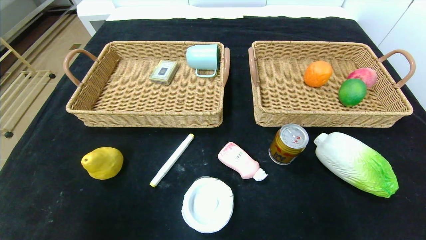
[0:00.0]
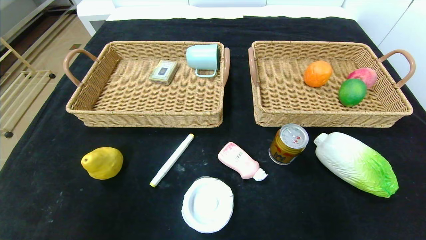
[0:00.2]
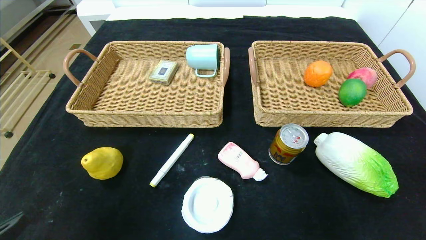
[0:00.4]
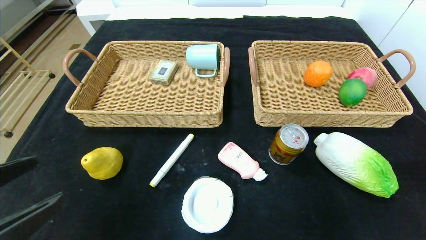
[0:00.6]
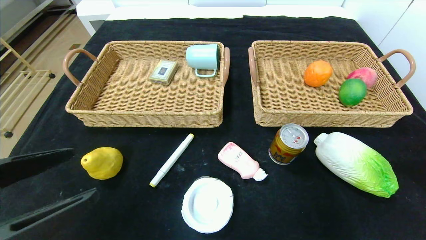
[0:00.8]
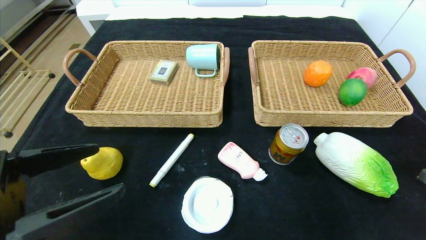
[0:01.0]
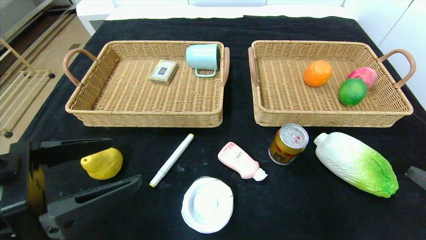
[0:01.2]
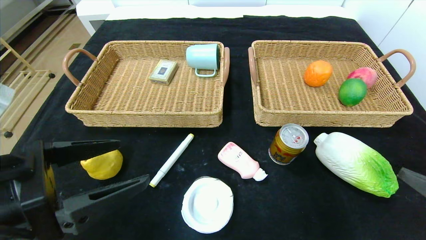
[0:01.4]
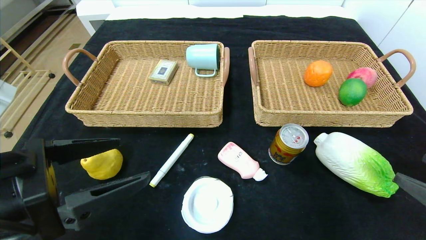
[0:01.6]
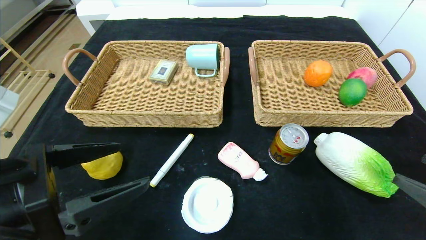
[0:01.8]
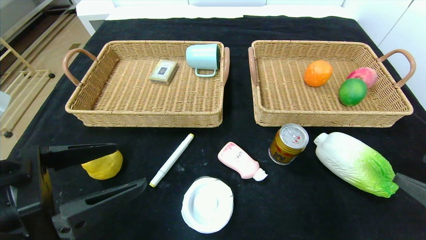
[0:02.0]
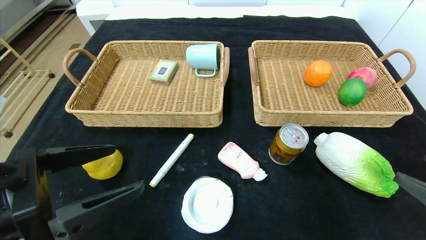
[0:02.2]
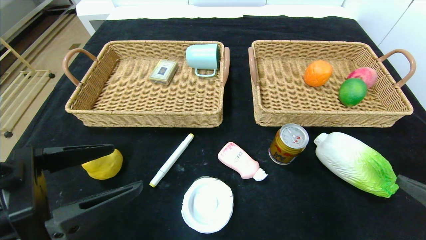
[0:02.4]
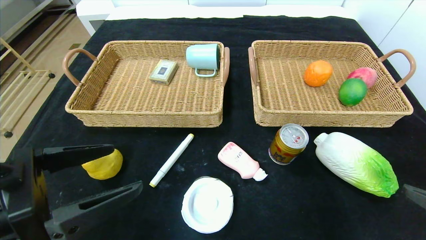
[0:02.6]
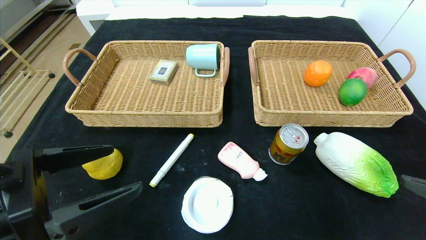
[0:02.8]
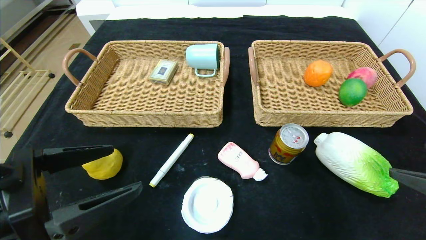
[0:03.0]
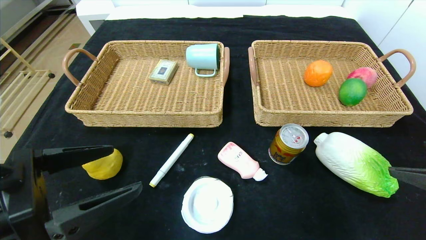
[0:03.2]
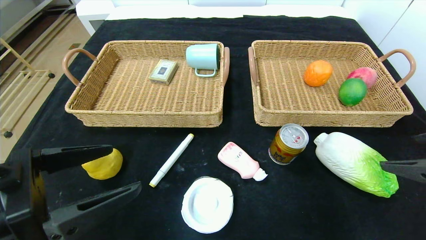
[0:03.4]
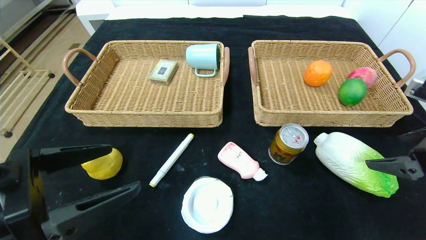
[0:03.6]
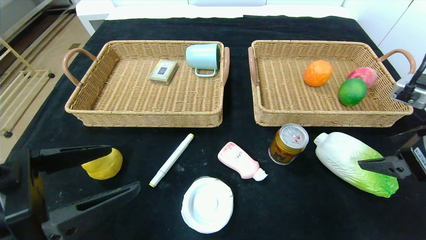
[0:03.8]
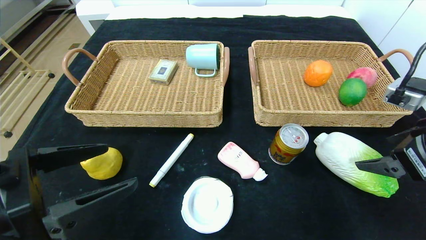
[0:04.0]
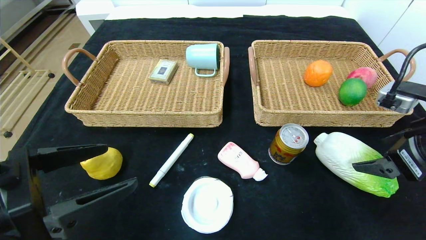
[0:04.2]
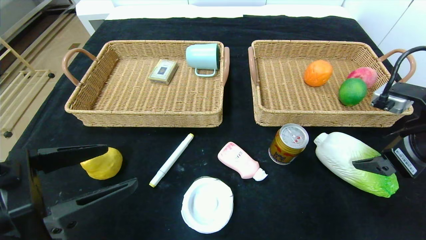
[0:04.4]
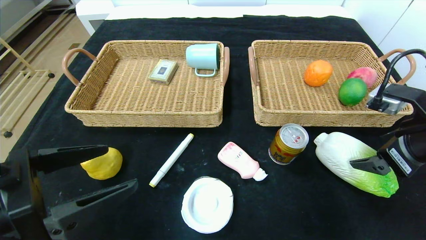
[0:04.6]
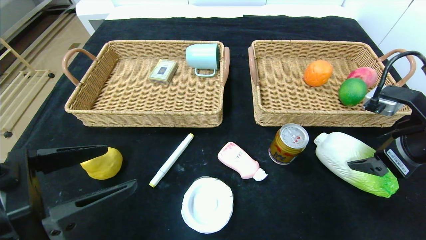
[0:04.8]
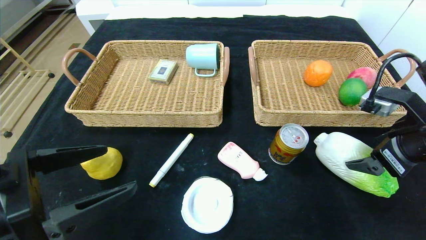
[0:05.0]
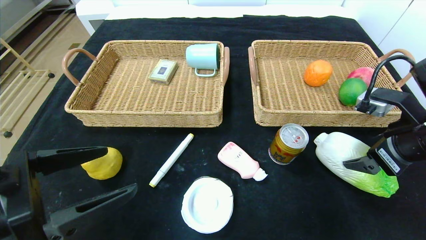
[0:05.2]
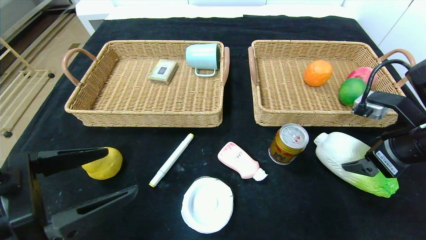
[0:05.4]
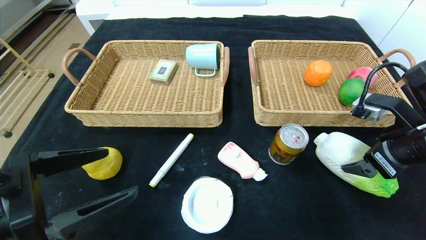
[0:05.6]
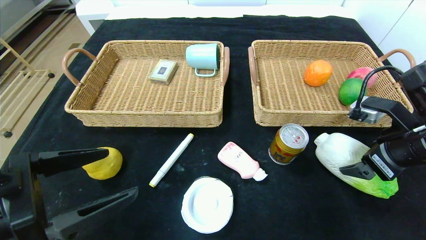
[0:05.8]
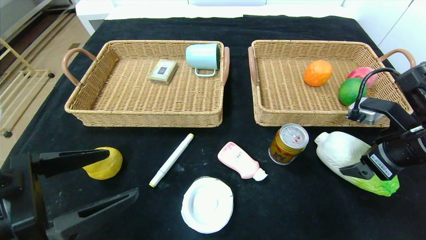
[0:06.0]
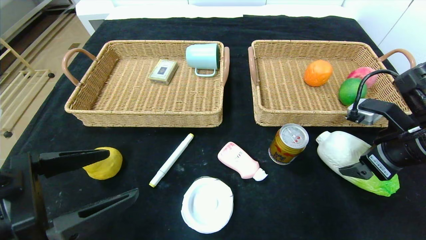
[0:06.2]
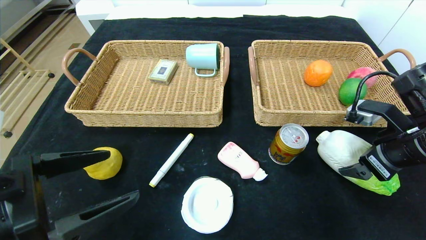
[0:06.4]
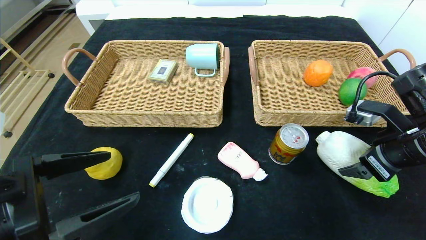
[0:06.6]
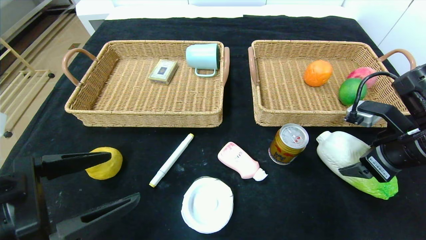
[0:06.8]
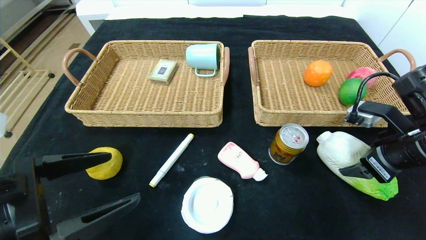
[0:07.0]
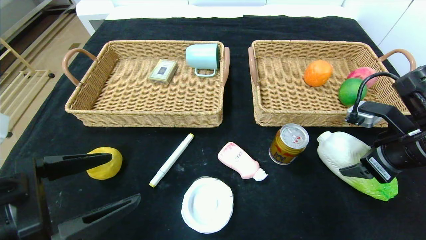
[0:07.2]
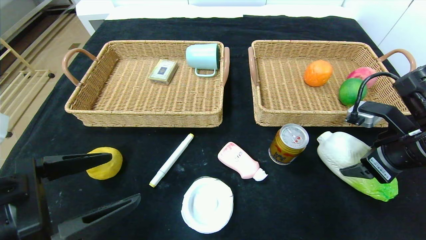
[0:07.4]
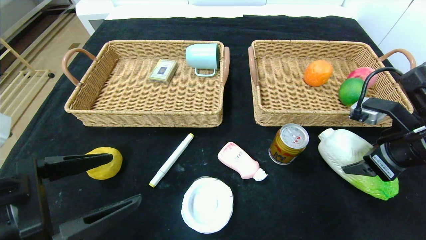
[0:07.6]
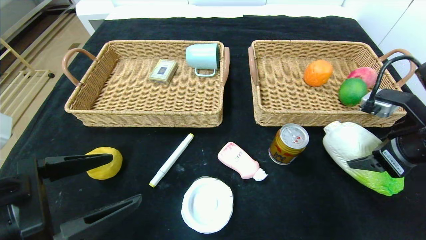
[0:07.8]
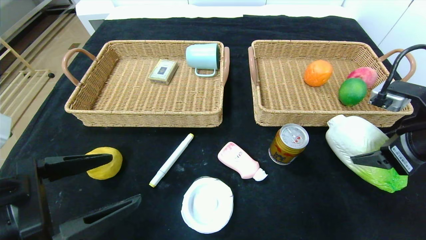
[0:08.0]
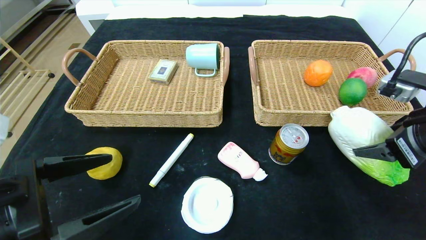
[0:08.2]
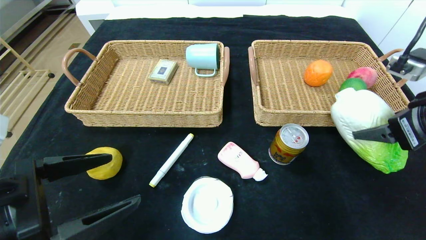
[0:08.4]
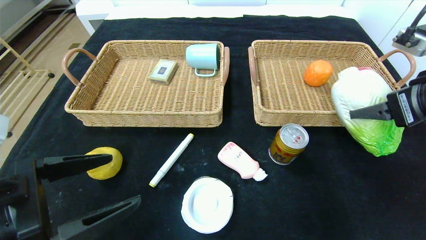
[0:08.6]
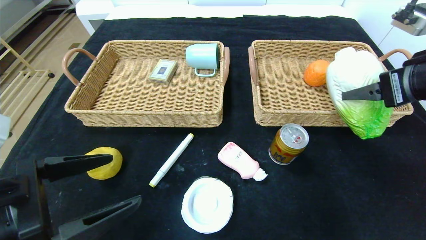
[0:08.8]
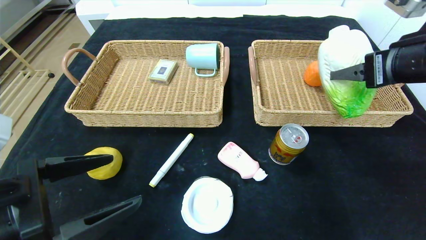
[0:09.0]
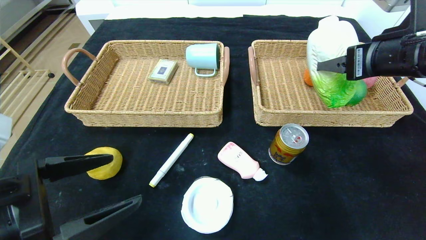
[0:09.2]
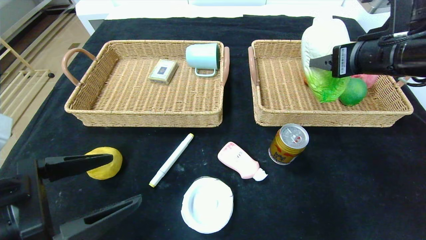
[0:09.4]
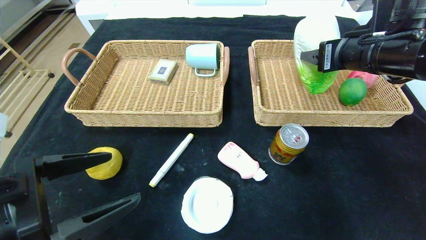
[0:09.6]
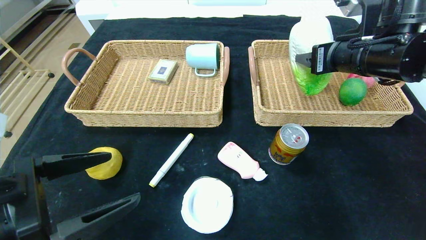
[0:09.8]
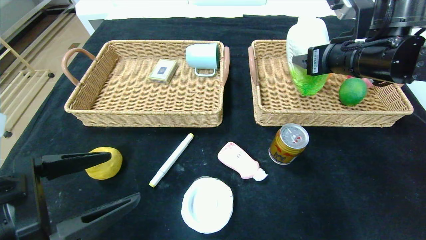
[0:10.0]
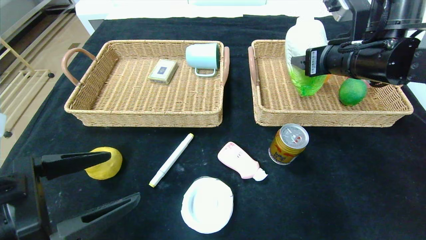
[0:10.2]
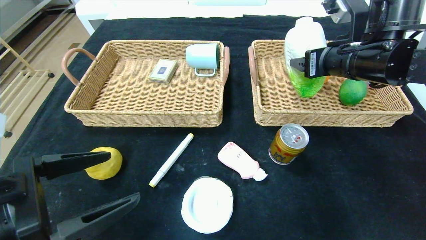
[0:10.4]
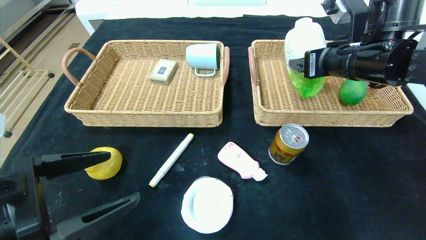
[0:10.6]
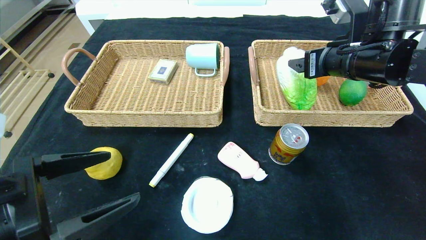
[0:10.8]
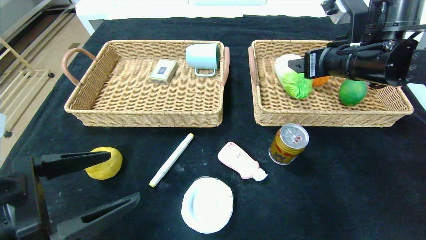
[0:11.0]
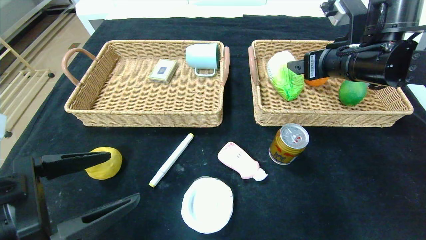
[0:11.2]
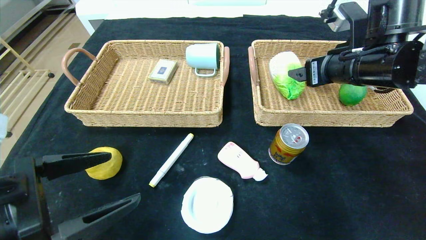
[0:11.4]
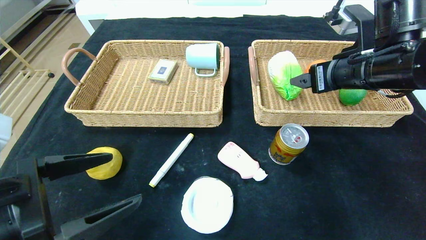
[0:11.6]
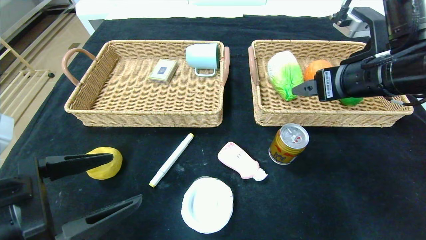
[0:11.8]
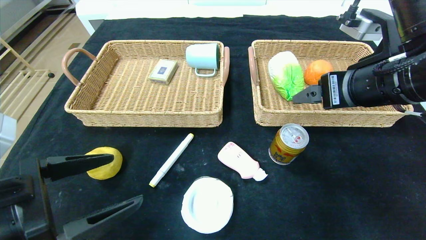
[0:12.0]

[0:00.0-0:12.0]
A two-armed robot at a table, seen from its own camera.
Step, 0:00.0 to 0:11.0: Grasp the chinese cabbage and put it in the right basket.
0:00.0 to 0:01.6: The left gripper moves forward, upward and to the right, about 20 cm. Meanwhile the right gripper travels forward and upward by some 10 cm.
0:01.6 to 0:03.0: The right gripper shifts approximately 5 cm upward.
0:03.0 to 0:04.4: The right gripper is displaced forward by approximately 10 cm.
0:04.4 to 0:06.0: There are only small adjustments of the grippers.
0:06.0 to 0:07.6: The right gripper closes up.
0:07.6 to 0:09.0: The right gripper moves upward, roughly 10 cm.
0:09.0 to 0:10.4: The right gripper moves forward and to the left, approximately 10 cm.
0:10.4 to 0:12.0: The right gripper shifts approximately 10 cm backward, and opens.

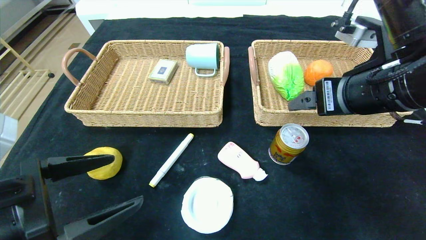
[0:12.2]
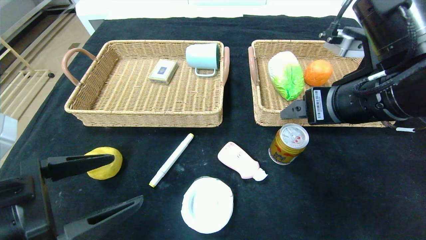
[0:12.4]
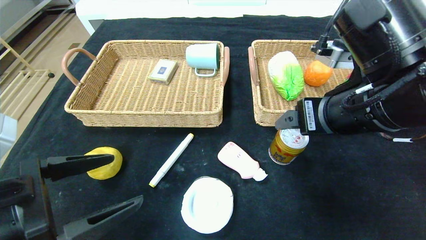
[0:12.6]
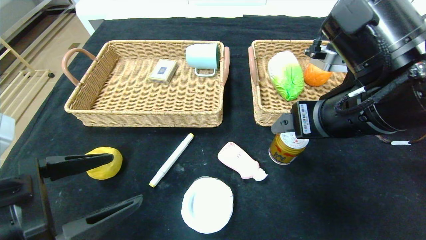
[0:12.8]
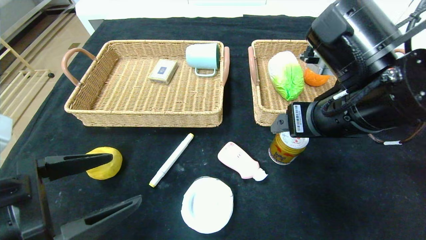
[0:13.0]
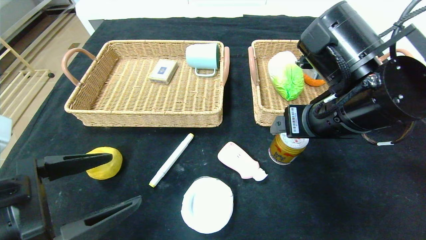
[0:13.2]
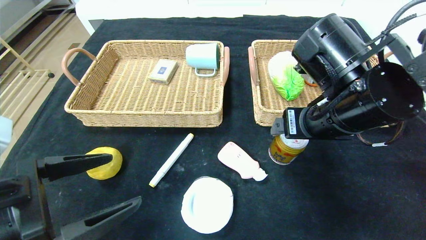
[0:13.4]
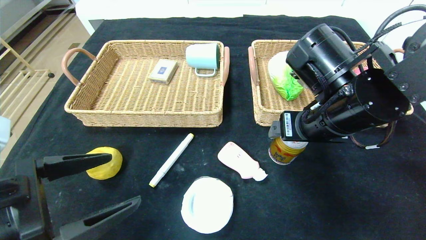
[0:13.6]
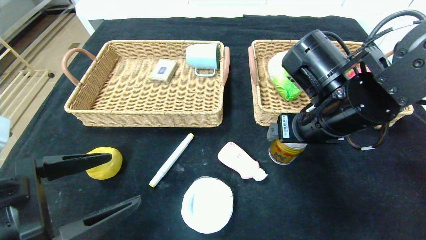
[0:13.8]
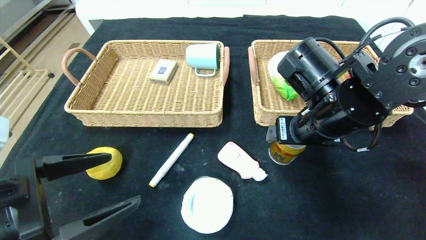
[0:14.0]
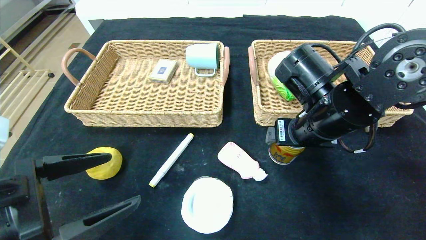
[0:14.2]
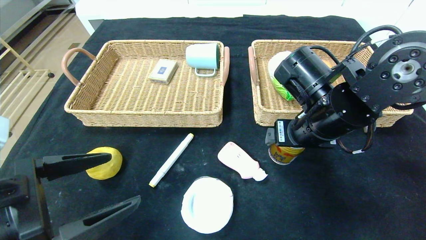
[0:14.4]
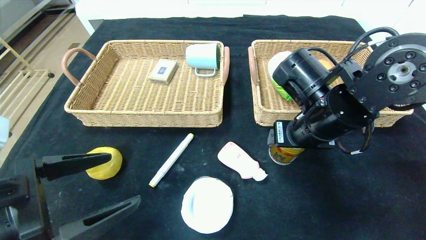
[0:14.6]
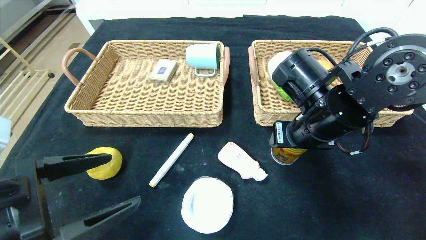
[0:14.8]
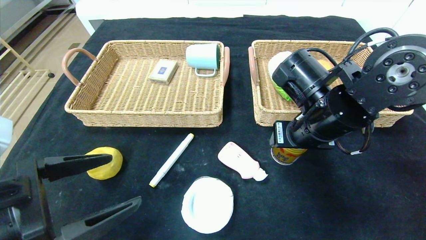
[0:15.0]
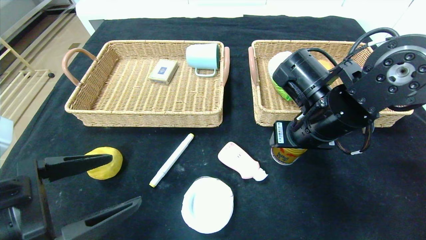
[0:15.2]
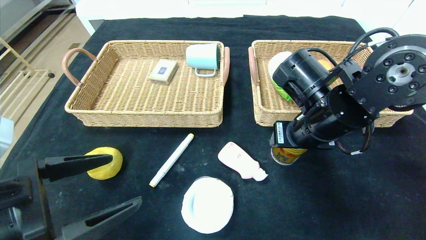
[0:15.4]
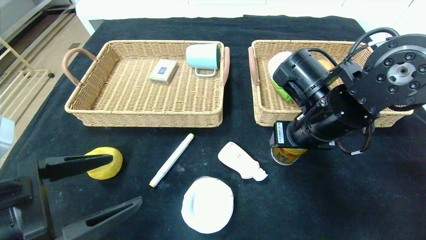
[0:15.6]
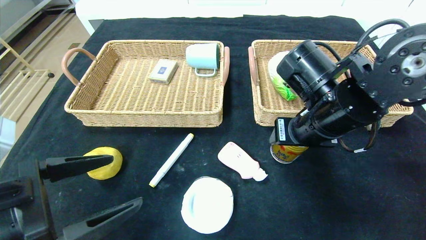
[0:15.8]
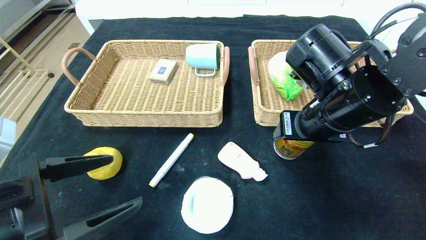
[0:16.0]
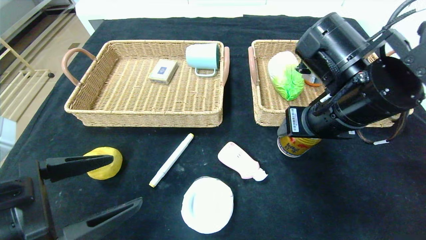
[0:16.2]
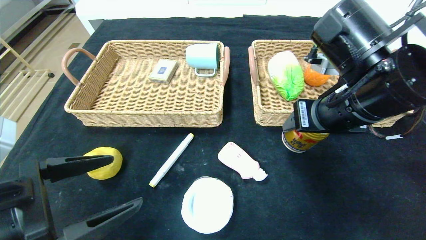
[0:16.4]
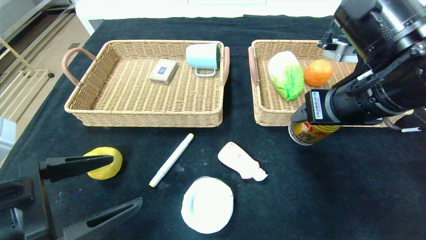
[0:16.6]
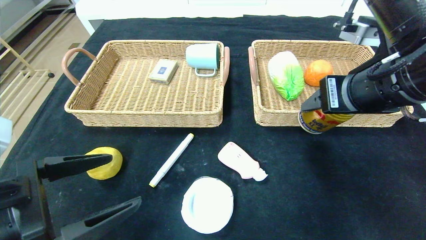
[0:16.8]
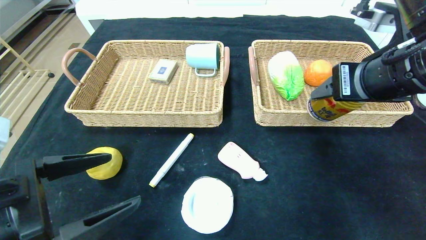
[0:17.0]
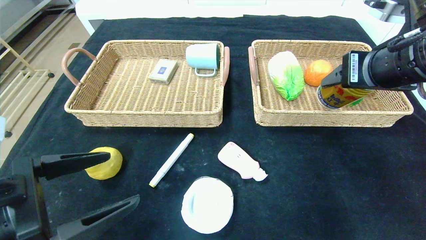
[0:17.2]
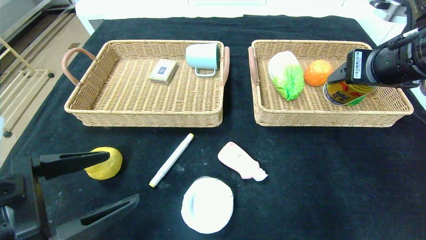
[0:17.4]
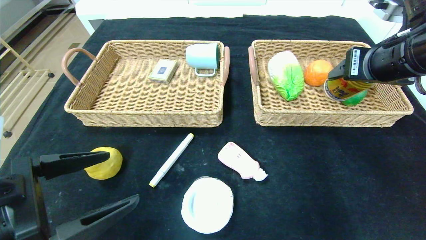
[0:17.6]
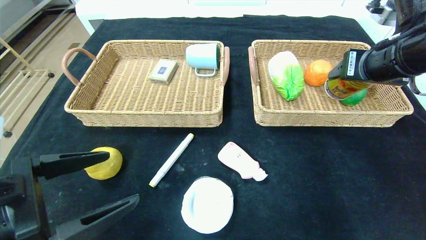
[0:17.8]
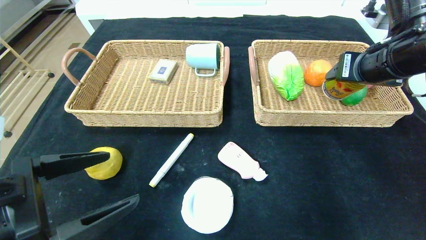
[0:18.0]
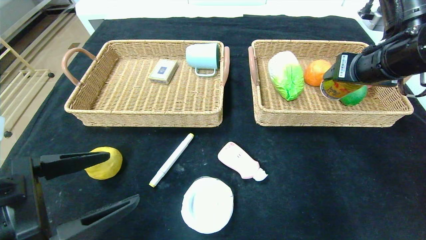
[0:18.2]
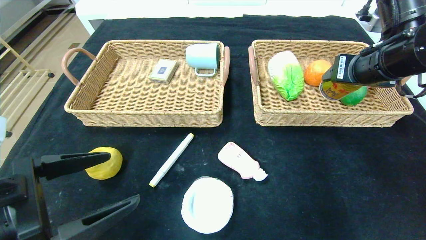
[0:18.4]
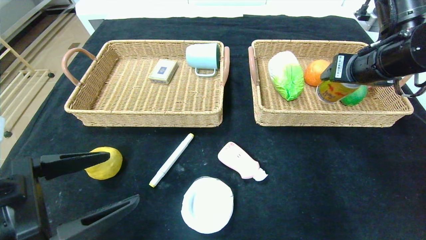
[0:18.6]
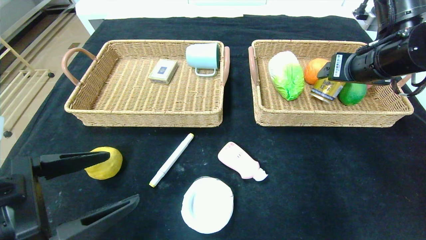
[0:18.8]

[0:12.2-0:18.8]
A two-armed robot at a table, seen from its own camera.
0:12.2 to 0:13.8: The right gripper travels downward by some 5 cm.
0:13.8 to 0:15.4: The right gripper closes.
0:15.4 to 0:17.2: The right gripper moves upward and to the right, approximately 15 cm.
0:17.2 to 0:18.8: The right gripper moves forward, approximately 5 cm, and opens.
